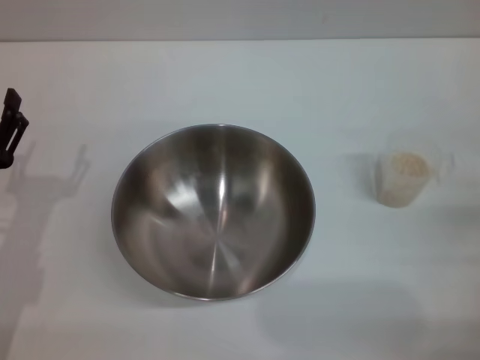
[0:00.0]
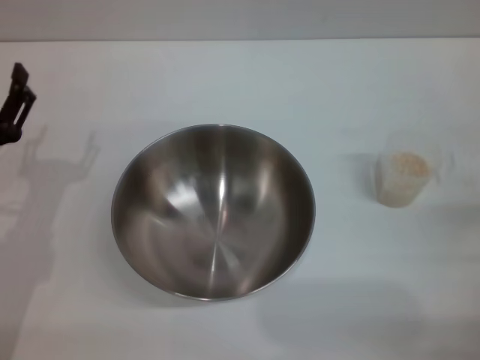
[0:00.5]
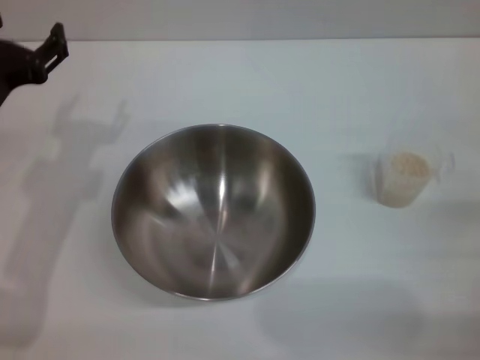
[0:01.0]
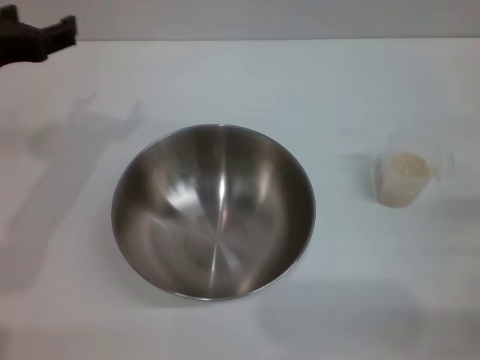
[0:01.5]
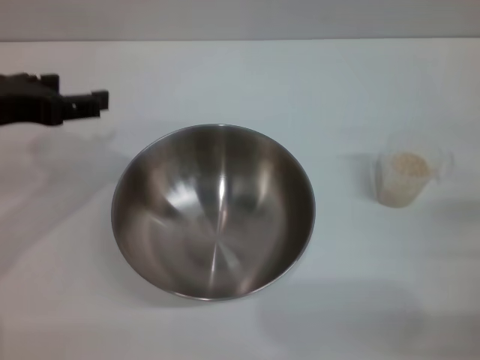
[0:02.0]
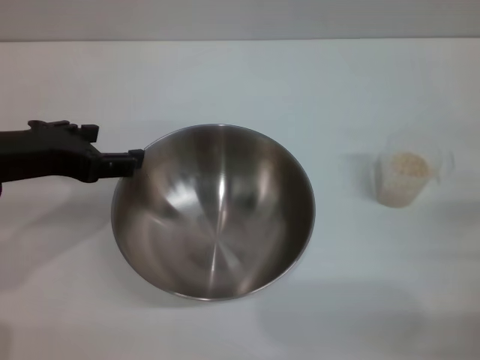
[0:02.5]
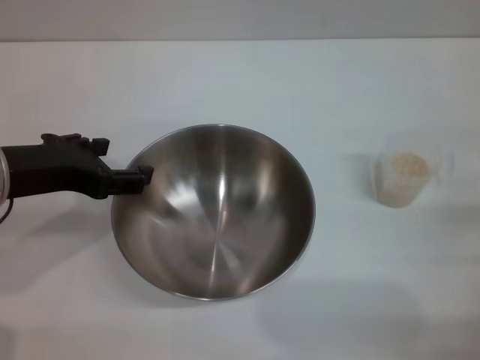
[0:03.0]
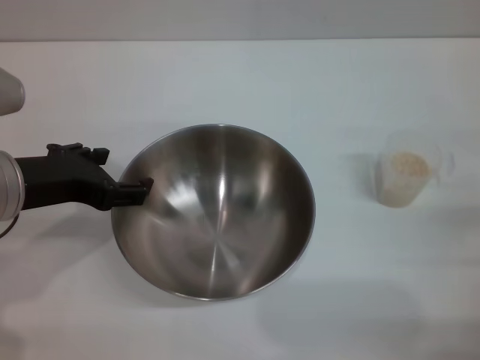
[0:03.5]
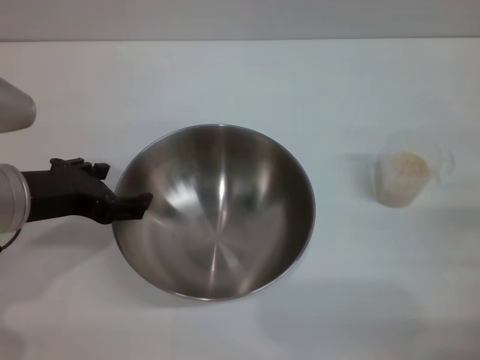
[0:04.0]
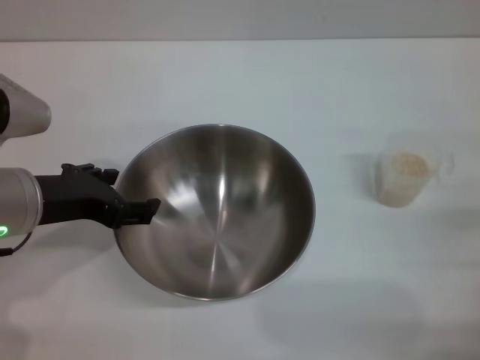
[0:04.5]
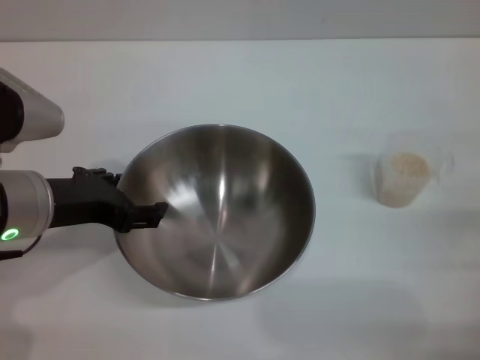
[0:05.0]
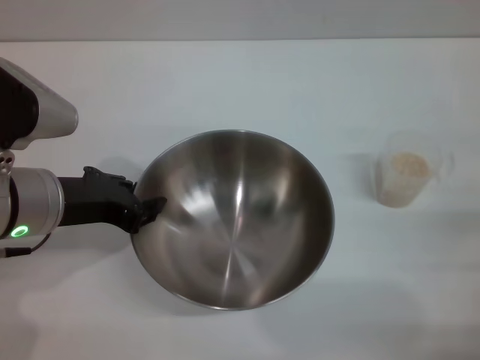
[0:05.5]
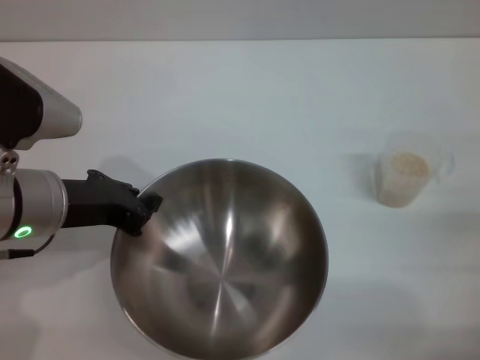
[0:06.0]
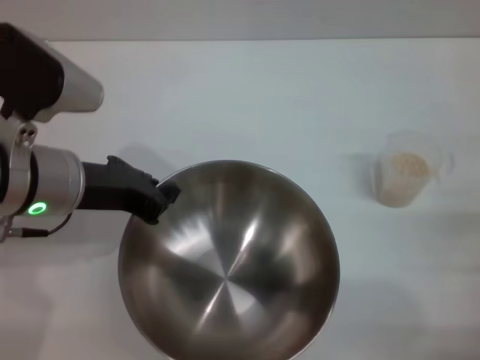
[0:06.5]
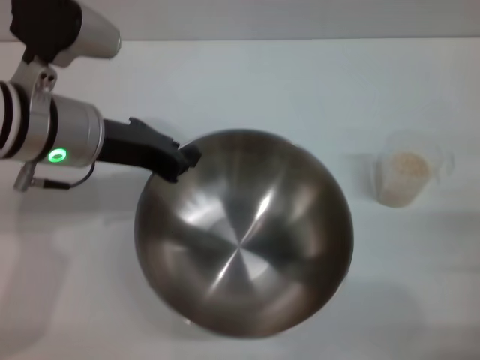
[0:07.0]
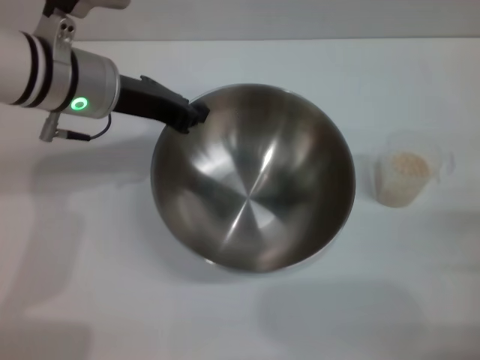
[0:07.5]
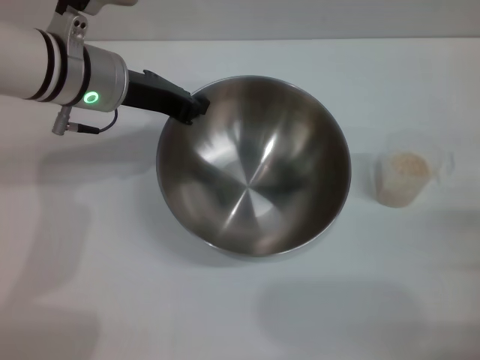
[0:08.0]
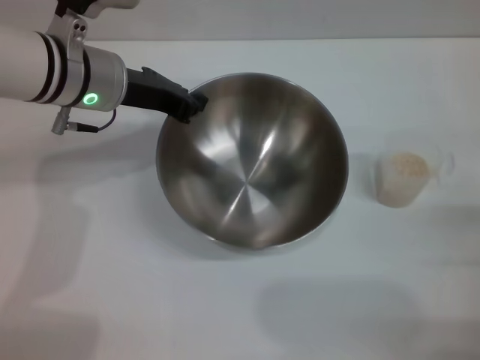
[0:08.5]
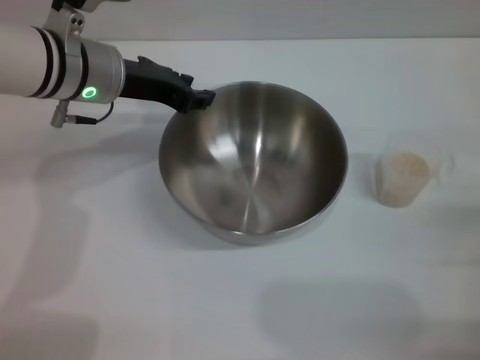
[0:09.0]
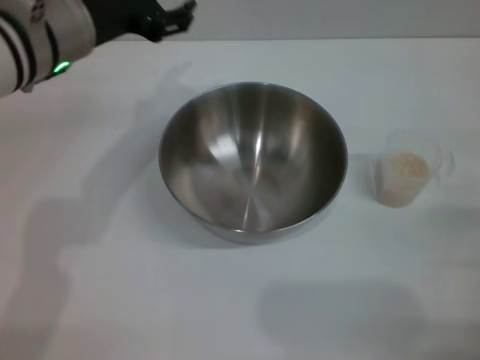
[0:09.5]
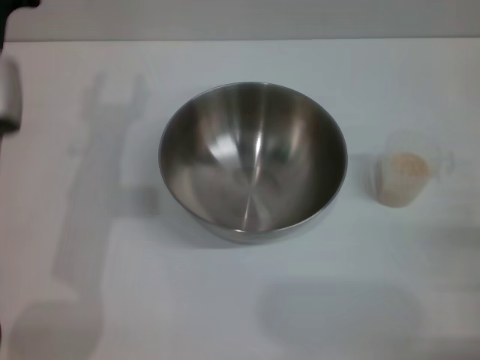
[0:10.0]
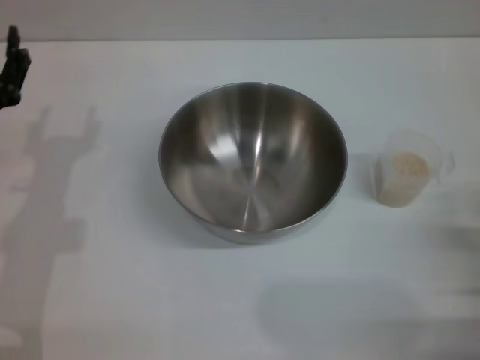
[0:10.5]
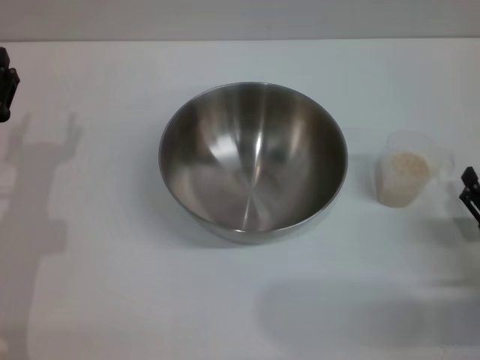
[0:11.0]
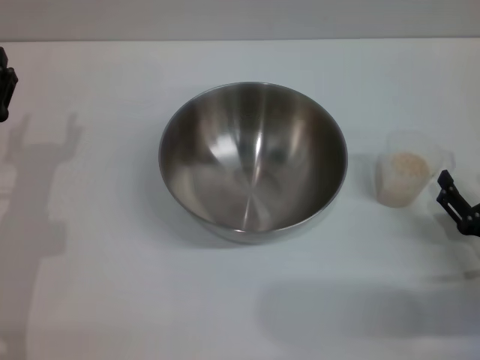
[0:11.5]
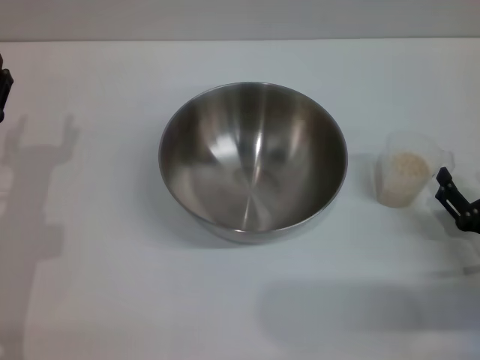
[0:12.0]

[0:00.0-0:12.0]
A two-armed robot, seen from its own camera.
Task of the whole recording: Place the bowl in the middle of the table with one hand and pour the rice from the grain cup into it with the other hand.
Step, 0:00.0 to 0:06.5: Pick up the bowl with the left gripper.
Step, 0:07.0 to 0:09.0: Place the bowl in the center of view with the left gripper.
0:00.0 to 0:02.0: The left gripper moves upward, roughly 15 cm.
0:02.0 to 0:04.0: The left gripper moves downward, approximately 5 cm.
0:04.0 to 0:06.0: The left gripper closes.
0:06.0 to 0:08.0: The left gripper moves forward, approximately 10 cm.
0:08.0 to 0:10.0: The left gripper heads backward, covering roughly 10 cm, and opens up.
0:10.0 to 0:12.0: The right gripper moves approximately 5 cm; the left gripper moves downward and to the left, approximately 10 cm.

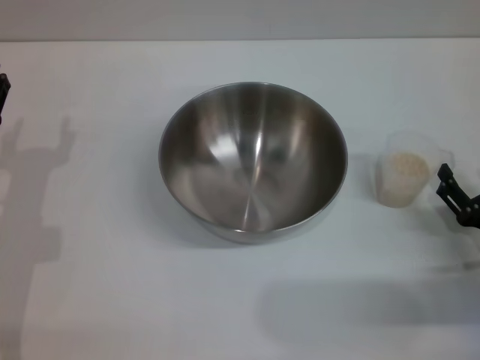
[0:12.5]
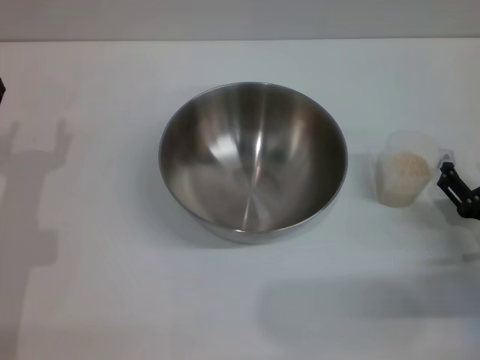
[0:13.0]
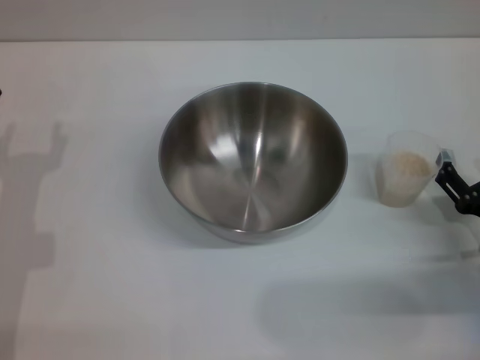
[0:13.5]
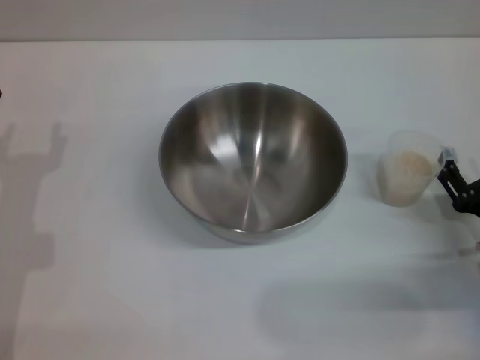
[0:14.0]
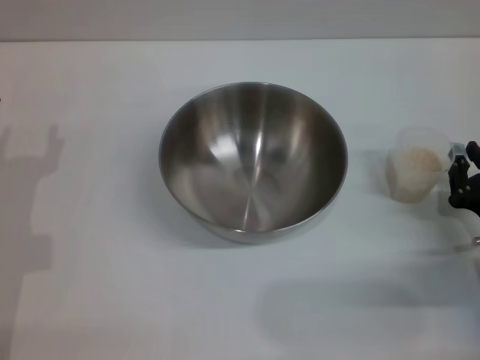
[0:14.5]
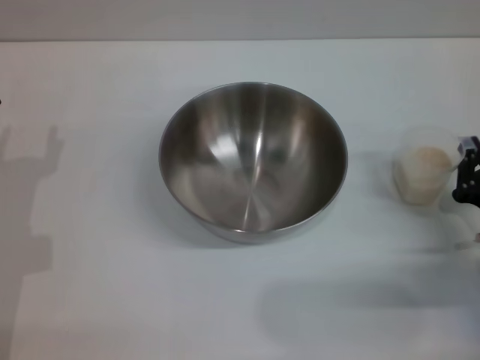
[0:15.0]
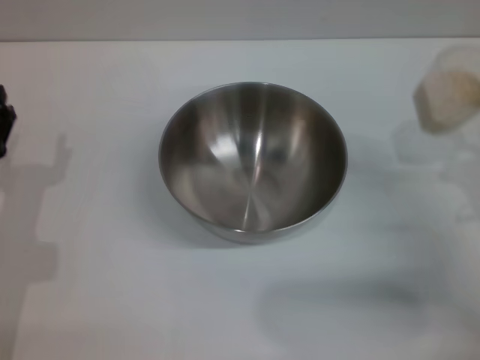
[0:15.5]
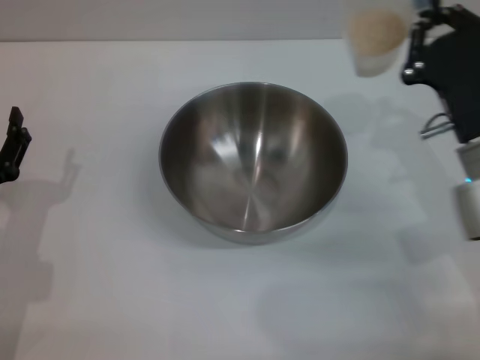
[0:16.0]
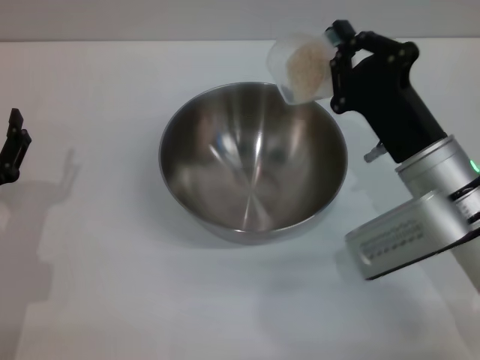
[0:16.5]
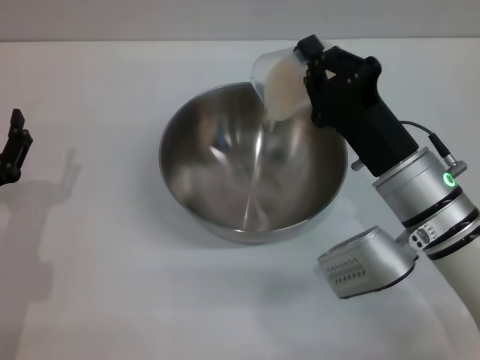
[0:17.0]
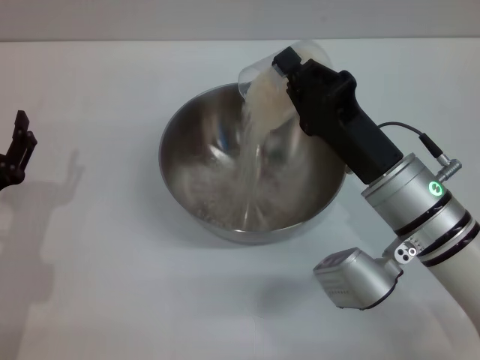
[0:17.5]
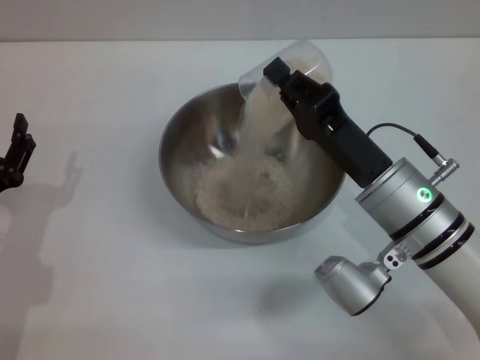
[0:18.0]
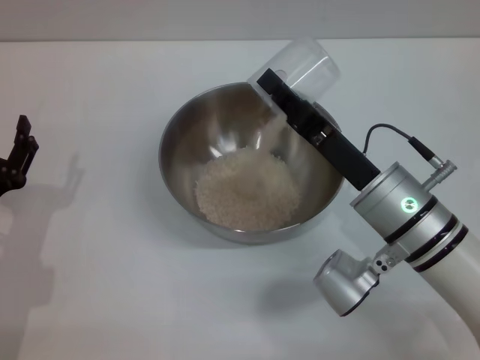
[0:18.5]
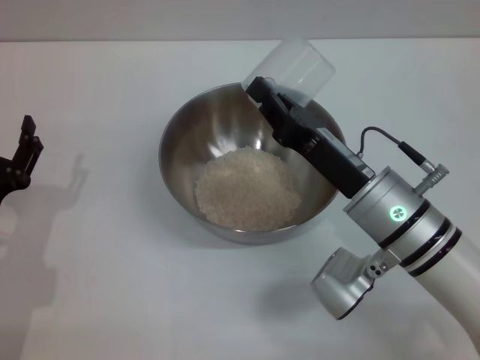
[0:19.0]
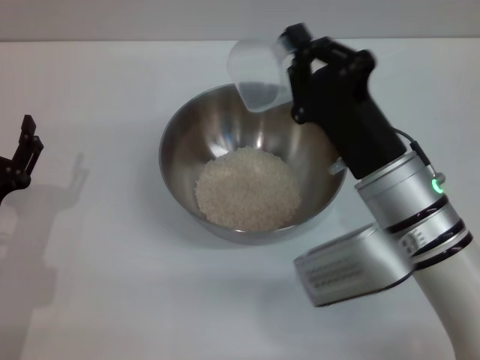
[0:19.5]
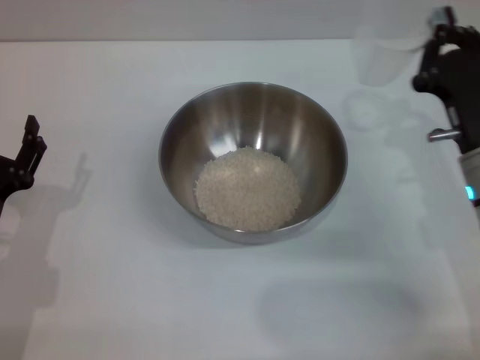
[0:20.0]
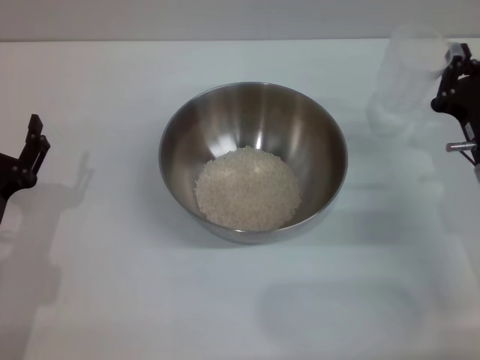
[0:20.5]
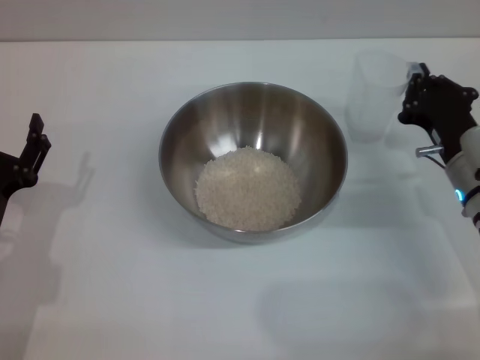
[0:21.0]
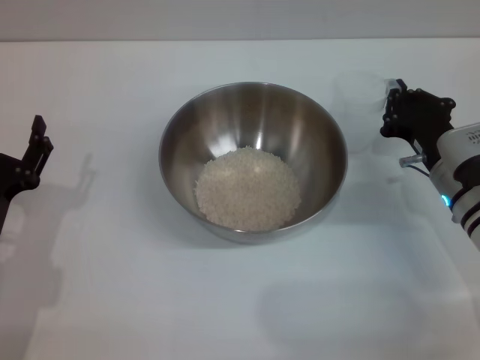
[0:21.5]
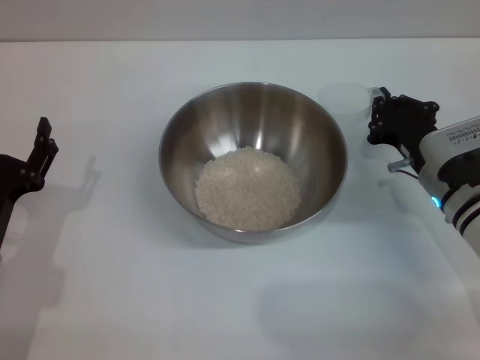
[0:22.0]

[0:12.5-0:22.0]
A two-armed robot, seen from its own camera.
Task of the whole recording: Place the bowl in the middle of the table with one hand and pour the rice from the grain cup into it with the other hand.
Step, 0:12.5 to 0:15.0: Pick up the cup with rice in it with the right gripper.
Step, 0:15.5 to 0:19.0: Pour the rice from the cup into the bowl with the right gripper.
0:12.5 to 0:14.5: The right gripper closes its fingers.
0:14.5 to 0:16.5: The right gripper heads to the left, upward and forward, covering about 15 cm, and closes up.
0:18.0 to 0:20.0: The right gripper shifts some 10 cm to the right.
0:20.0 to 0:22.0: The right gripper shifts by roughly 5 cm.

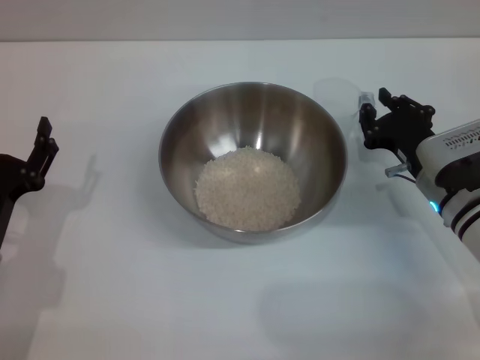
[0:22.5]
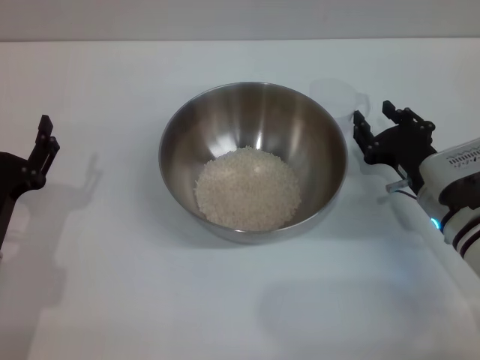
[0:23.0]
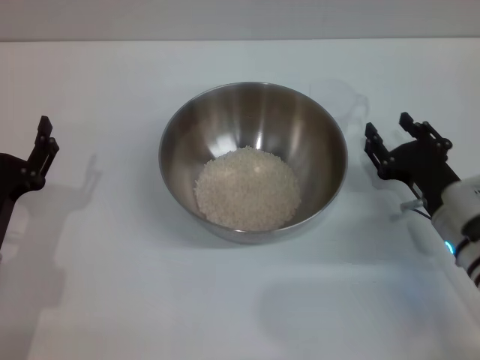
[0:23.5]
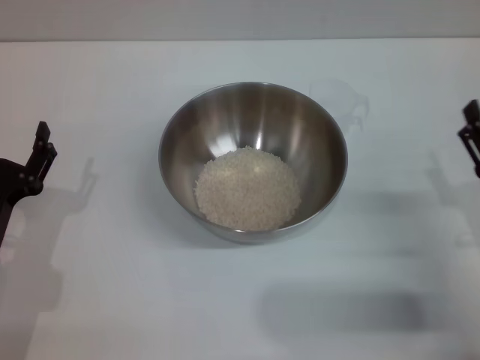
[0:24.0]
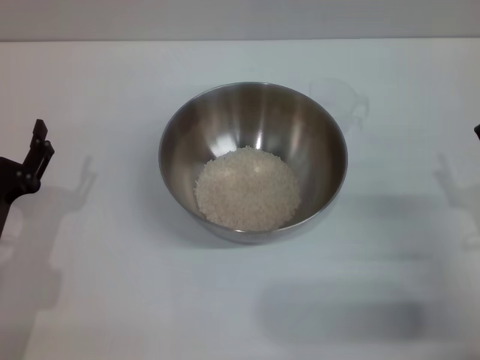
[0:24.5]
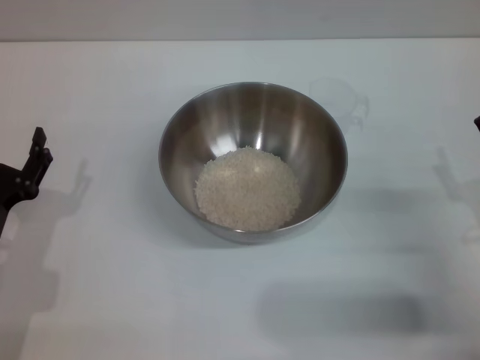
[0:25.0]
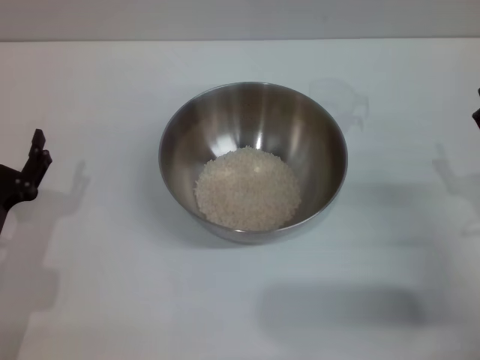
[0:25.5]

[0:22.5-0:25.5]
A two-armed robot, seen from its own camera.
Task of the whole recording: Place the bowl in the middle of the table with one hand and pour the rice from the grain cup into it with the other hand.
0:22.5 to 0:24.0: The right gripper shifts about 10 cm backward, and opens up.
0:24.0 to 0:25.5: The grippers stay close to where they were, moving slightly.
